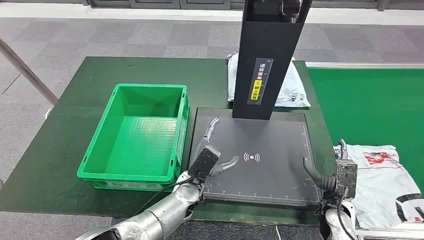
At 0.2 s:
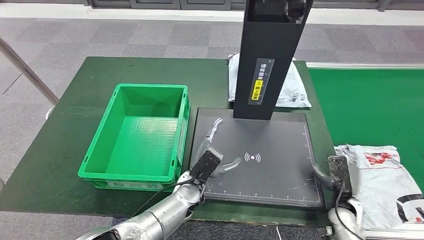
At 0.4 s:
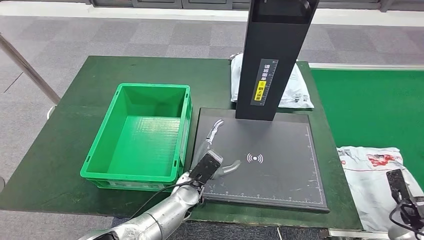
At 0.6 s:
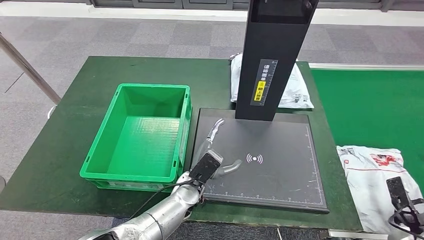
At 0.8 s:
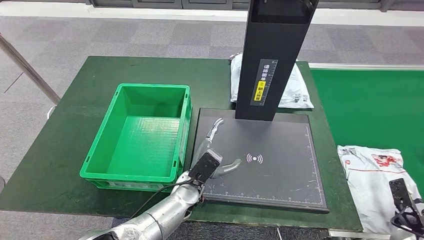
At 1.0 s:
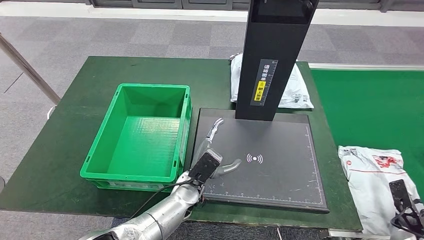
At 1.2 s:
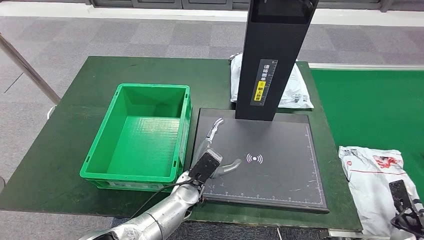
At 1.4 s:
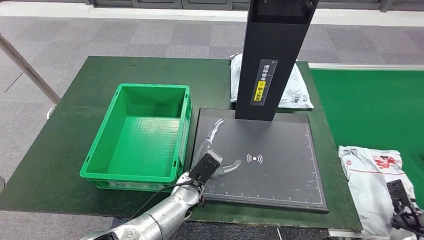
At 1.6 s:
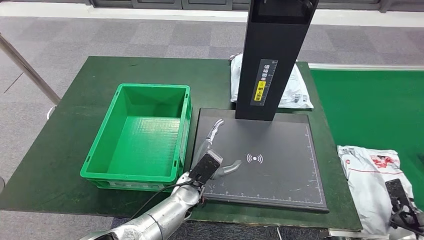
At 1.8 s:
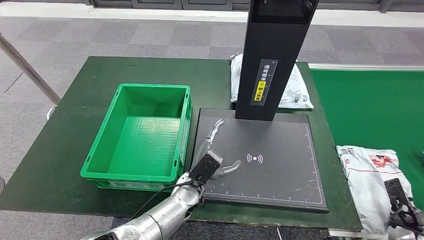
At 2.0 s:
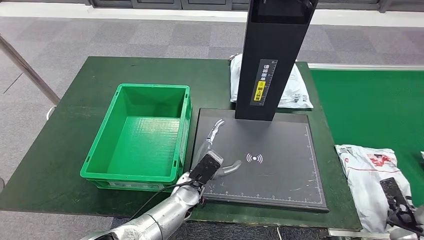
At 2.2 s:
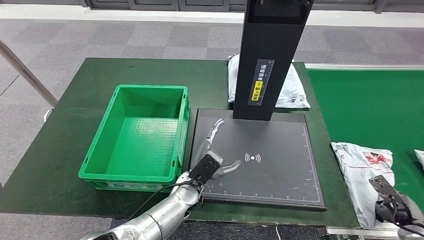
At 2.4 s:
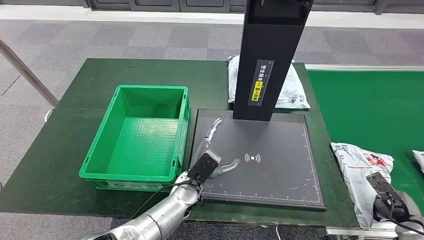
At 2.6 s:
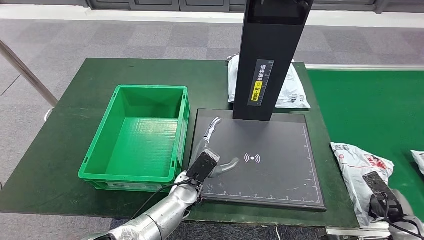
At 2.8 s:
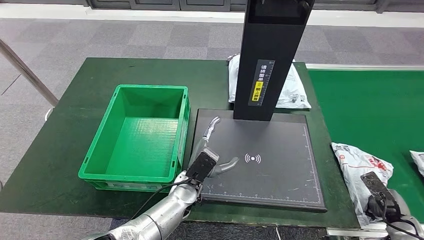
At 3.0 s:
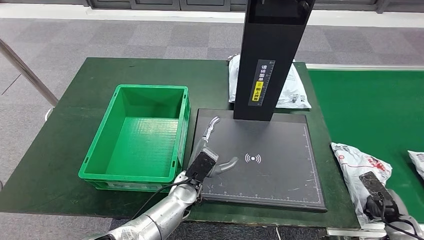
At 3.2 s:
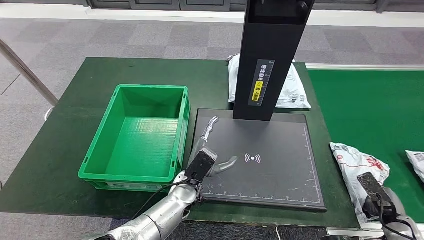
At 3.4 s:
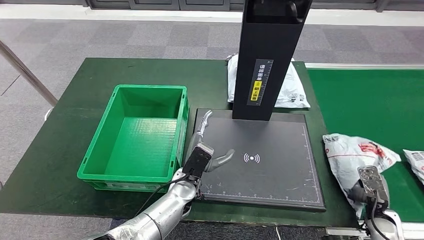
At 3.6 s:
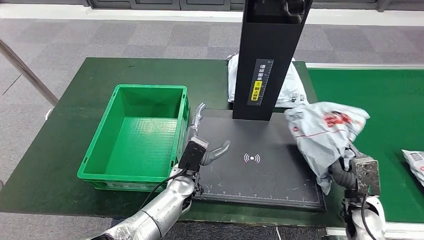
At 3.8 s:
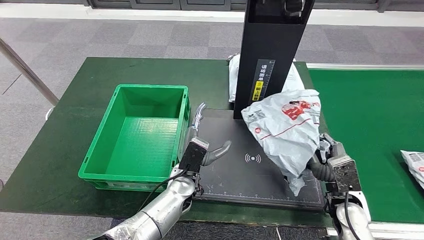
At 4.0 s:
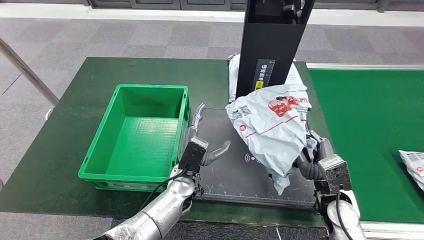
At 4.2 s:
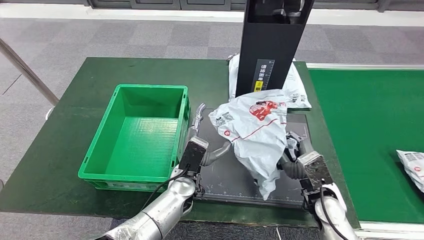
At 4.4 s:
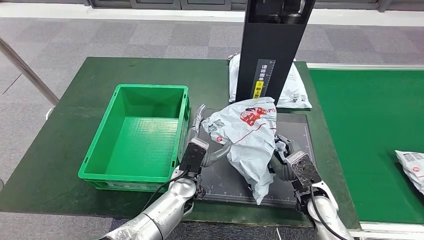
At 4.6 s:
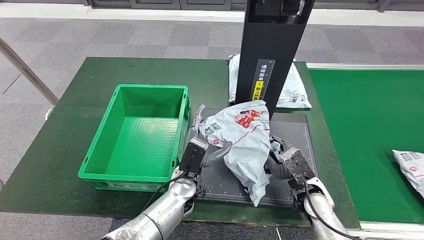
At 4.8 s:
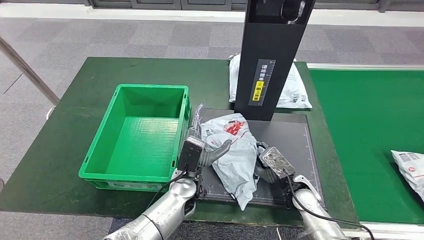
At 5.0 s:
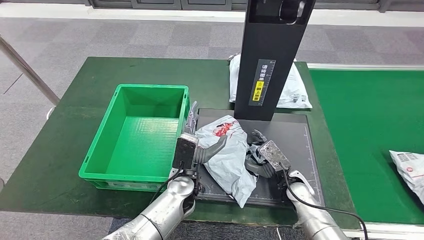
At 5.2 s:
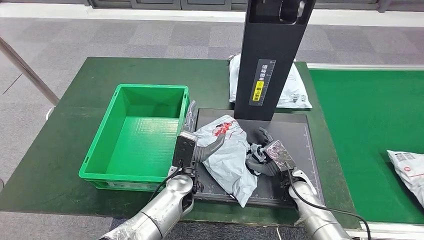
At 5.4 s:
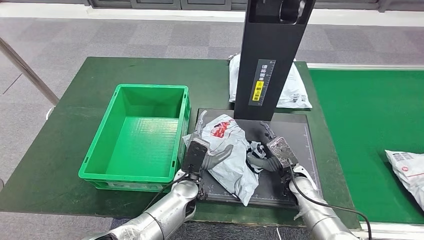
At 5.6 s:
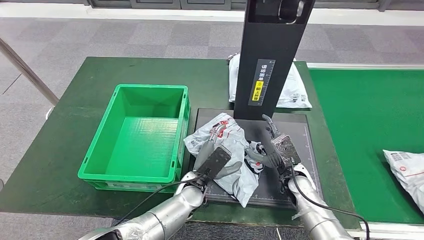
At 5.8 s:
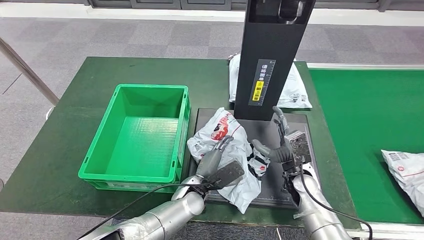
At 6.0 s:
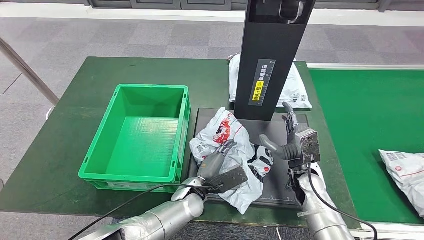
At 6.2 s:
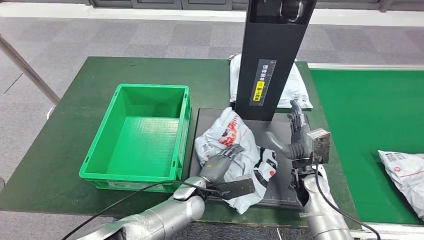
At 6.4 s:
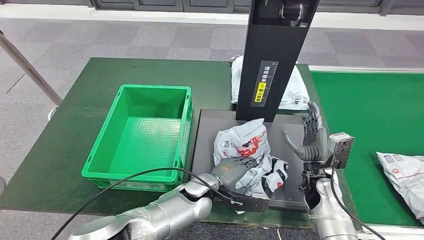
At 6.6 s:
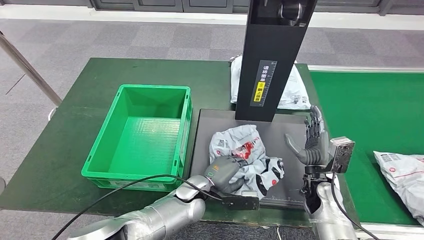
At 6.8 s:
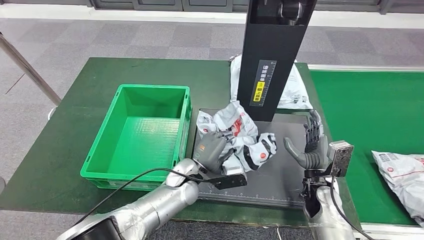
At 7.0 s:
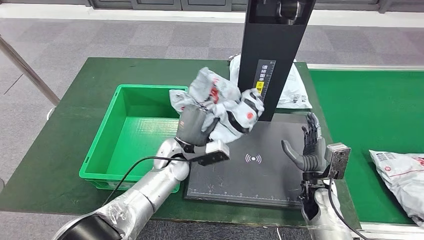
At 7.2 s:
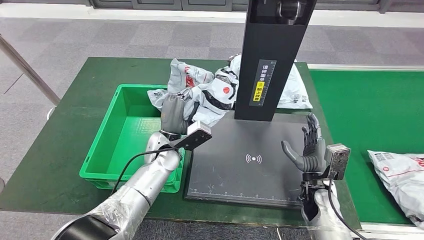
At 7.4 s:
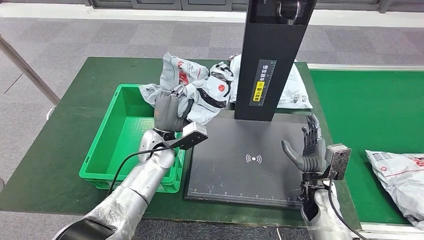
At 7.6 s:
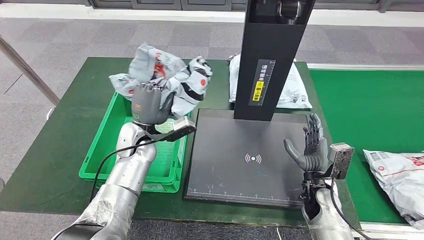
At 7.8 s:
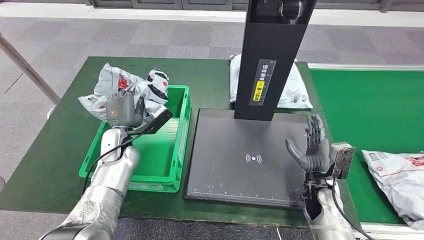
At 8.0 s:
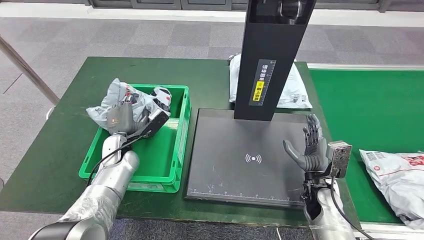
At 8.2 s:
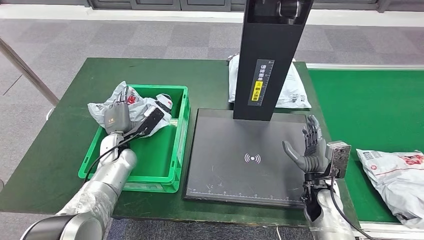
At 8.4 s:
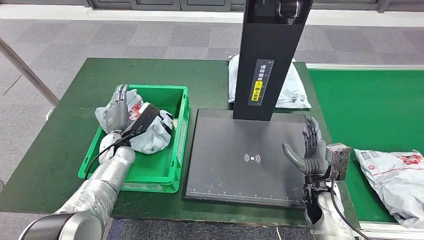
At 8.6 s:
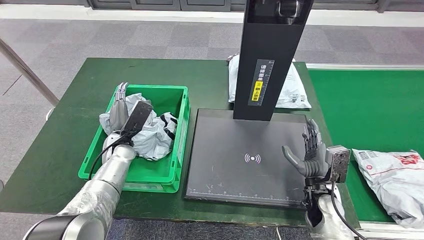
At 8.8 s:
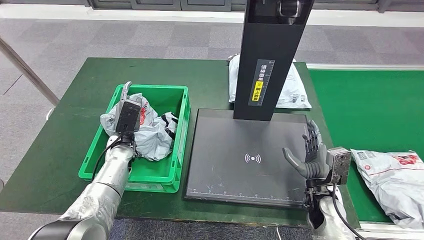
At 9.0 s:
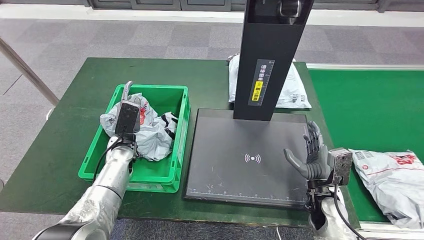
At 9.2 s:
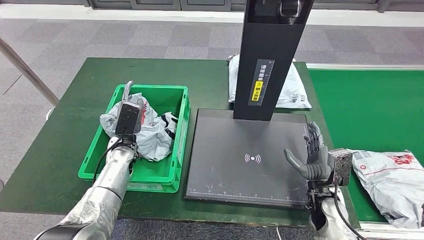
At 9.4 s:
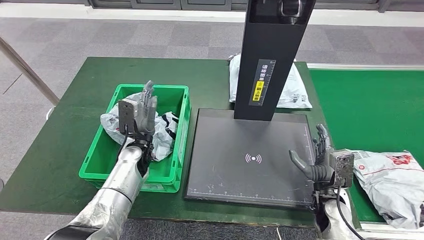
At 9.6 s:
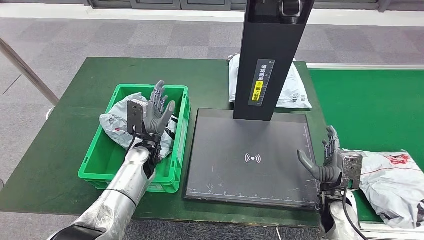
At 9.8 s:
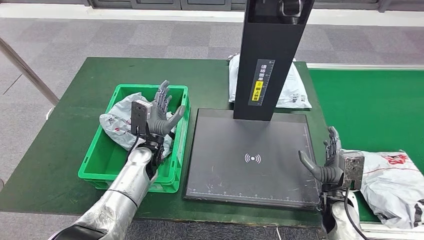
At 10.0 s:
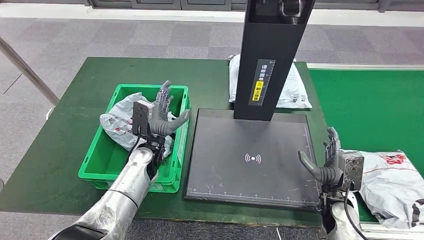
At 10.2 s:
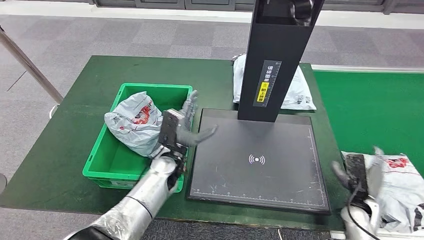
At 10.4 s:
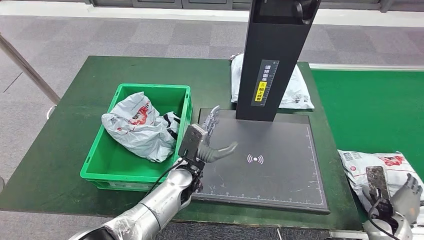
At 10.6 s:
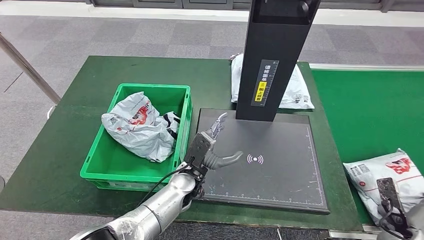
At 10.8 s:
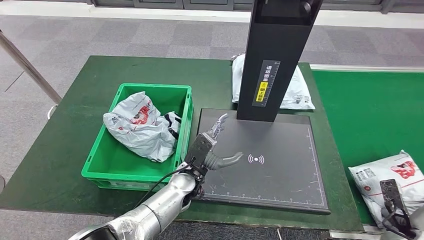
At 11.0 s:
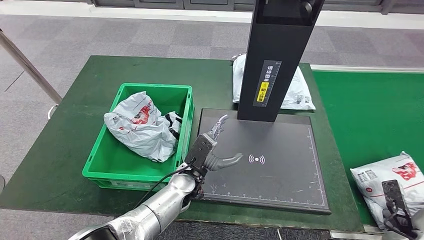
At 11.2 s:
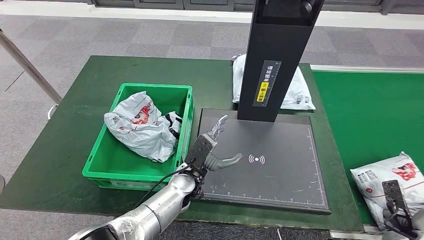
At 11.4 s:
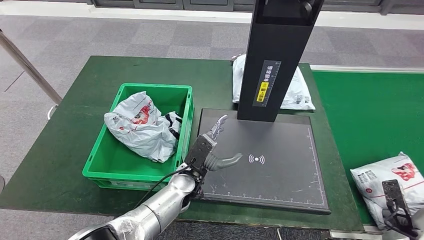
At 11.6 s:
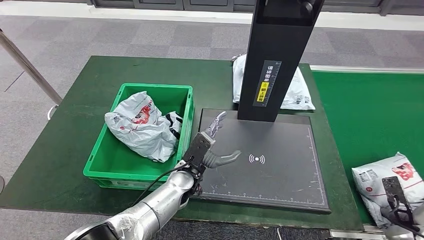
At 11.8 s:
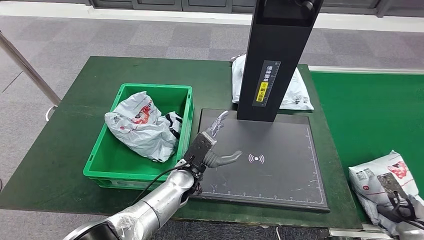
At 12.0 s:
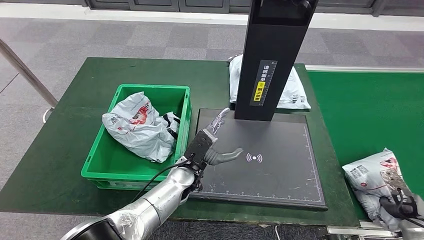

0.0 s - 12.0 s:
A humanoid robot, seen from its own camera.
Step, 0.0 s - 4.4 s: Take the parcel off the conveyor belt.
Step, 4.6 s - 6.8 s: Place the parcel onto the inbound machine.
Step, 7.0 s - 8.8 s: Pick up the parcel from the inbound machine.
Step, 9.0 s - 10.8 s: Put the parcel inside the courier box.
4.4 s - 6.0 s: The right hand travels forward by roughly 5 cm.

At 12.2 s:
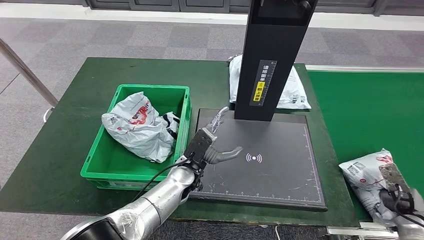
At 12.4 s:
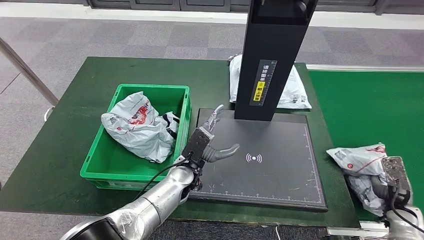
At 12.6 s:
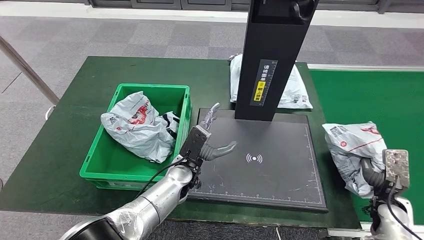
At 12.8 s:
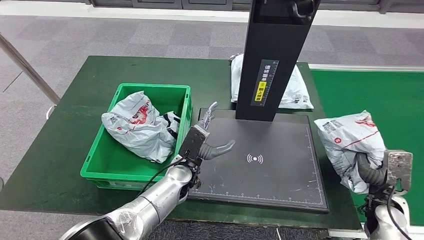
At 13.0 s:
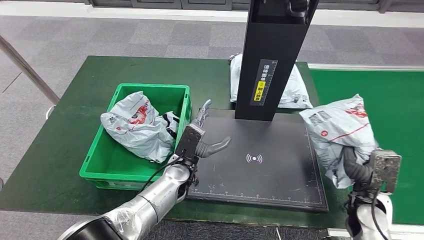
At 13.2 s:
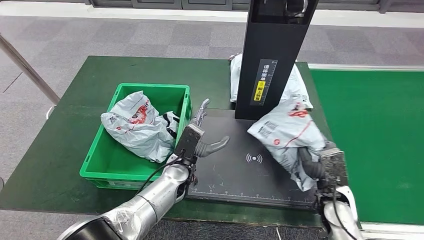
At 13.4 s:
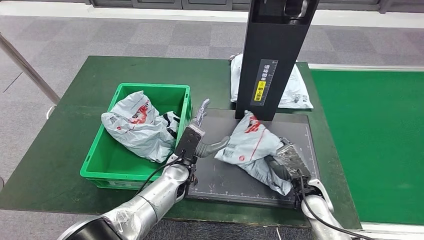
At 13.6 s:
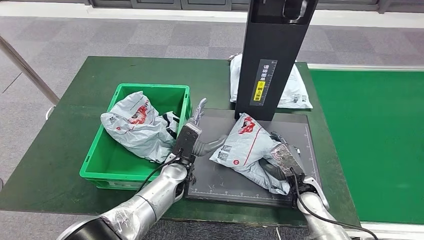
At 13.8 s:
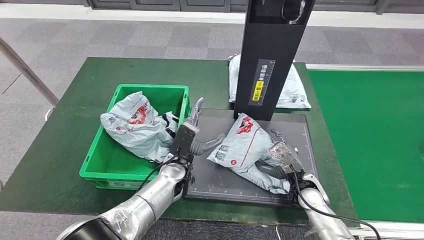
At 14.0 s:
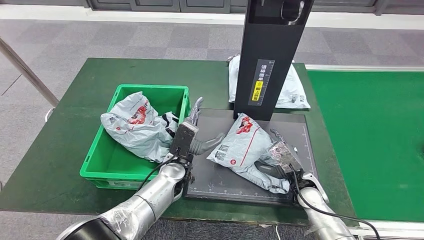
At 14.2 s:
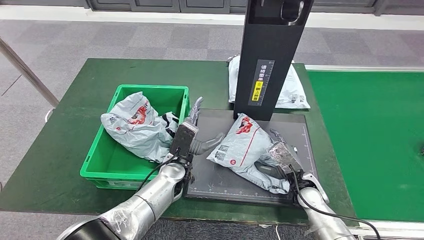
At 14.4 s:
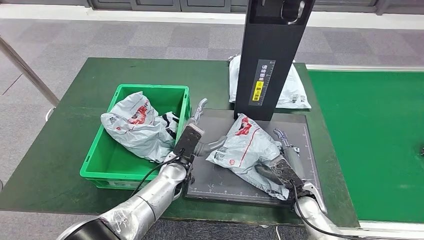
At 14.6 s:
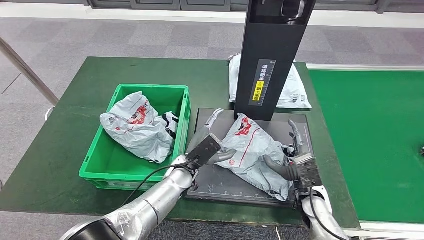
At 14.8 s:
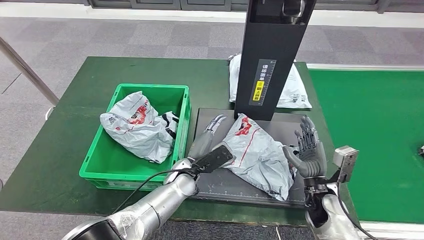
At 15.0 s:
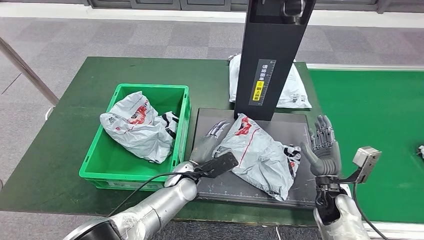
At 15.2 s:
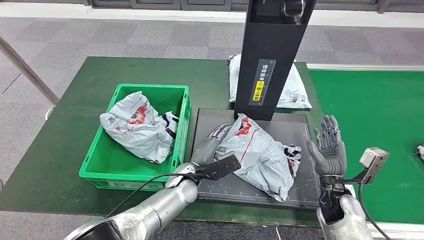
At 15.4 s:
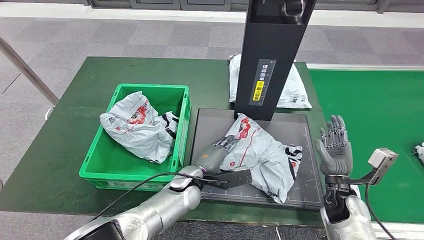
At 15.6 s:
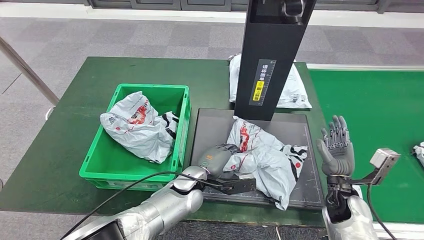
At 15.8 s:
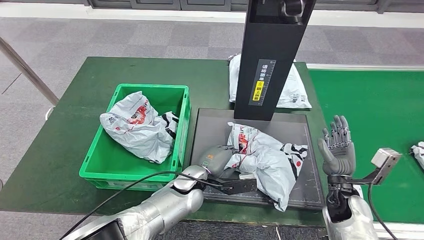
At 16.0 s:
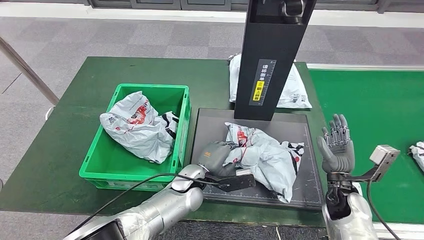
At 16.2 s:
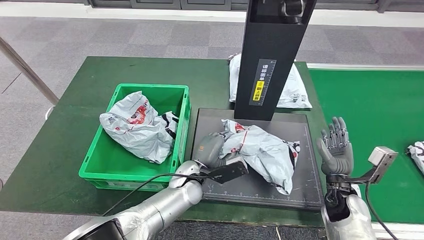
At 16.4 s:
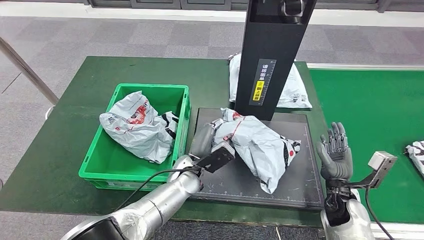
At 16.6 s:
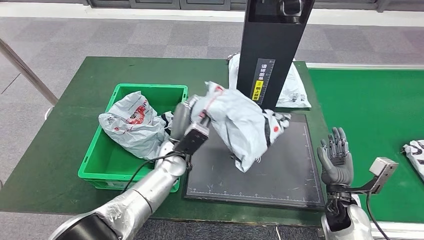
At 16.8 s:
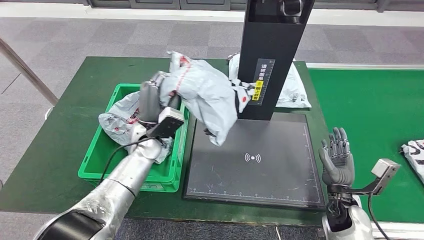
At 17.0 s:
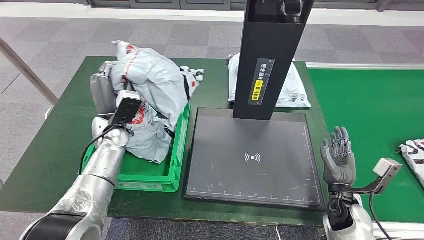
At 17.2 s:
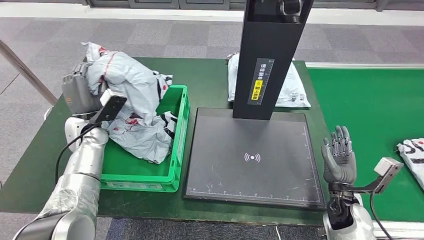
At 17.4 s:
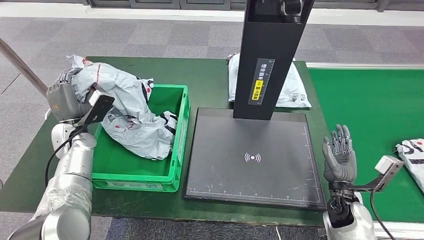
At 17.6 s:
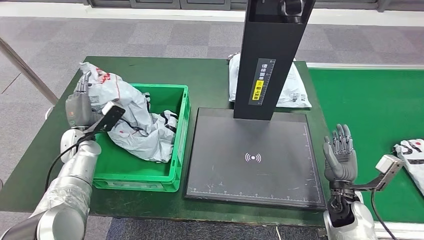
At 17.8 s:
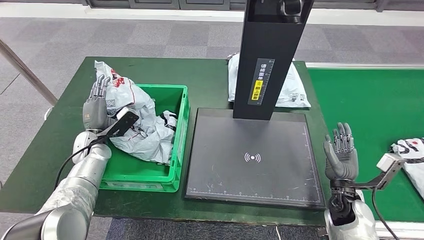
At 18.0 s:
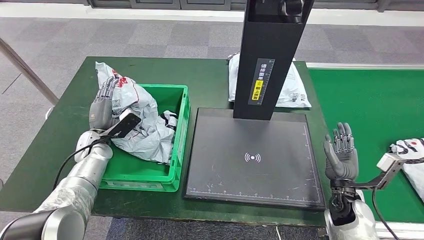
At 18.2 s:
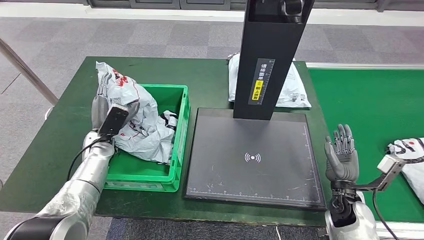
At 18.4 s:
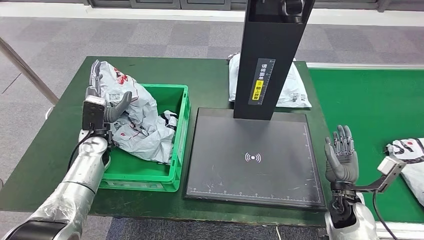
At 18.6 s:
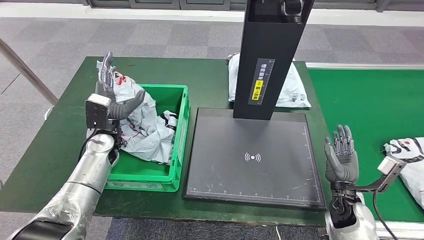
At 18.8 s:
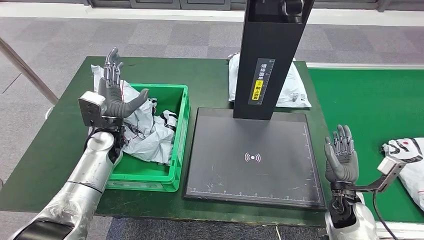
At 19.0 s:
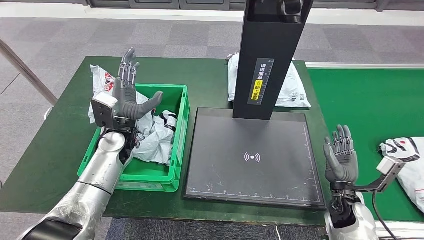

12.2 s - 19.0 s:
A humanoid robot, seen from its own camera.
Step, 13.6 s - 14.4 s: Place the parcel onto the inbound machine.
Step, 14.6 s - 16.6 s: Pick up the parcel from the inbound machine.
Step, 16.8 s - 18.4 s: Place the parcel into the delivery box.
13.6 s - 15.0 s: The right hand moves to the right, some 5 cm.
17.6 s - 19.0 s: The left hand moves to the right and upward, approximately 15 cm.
